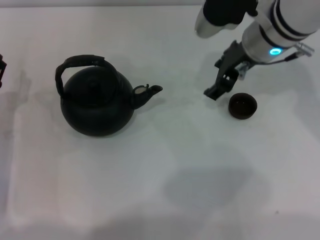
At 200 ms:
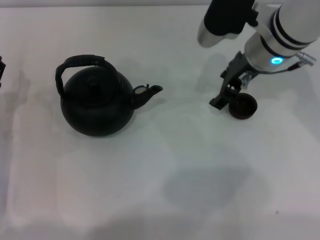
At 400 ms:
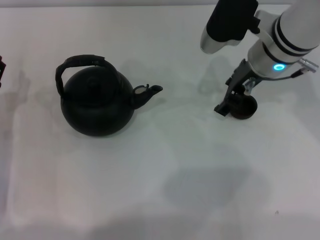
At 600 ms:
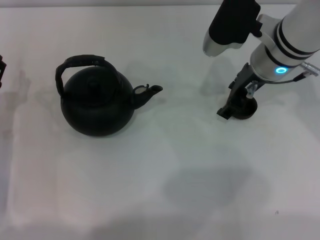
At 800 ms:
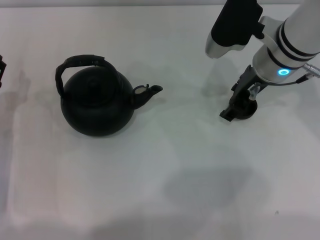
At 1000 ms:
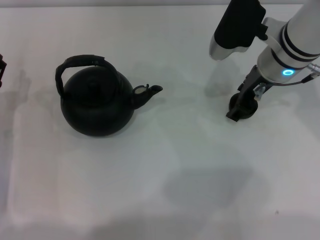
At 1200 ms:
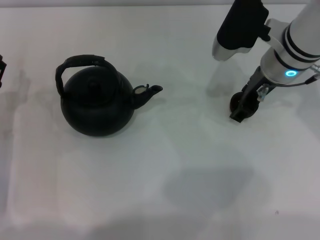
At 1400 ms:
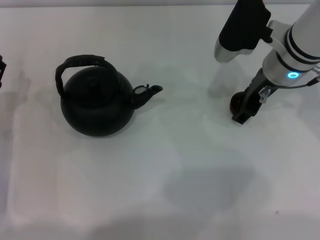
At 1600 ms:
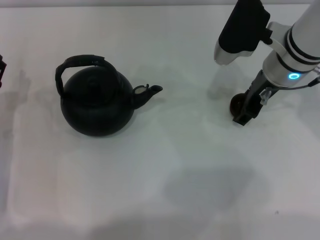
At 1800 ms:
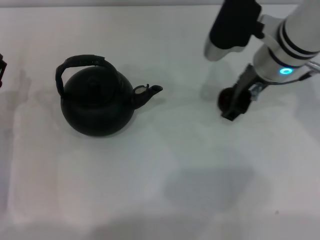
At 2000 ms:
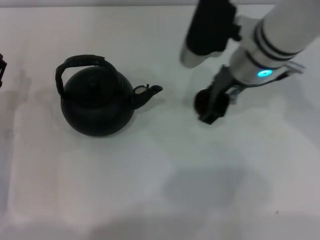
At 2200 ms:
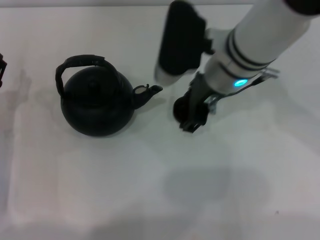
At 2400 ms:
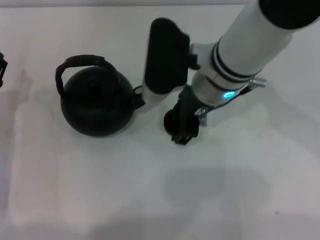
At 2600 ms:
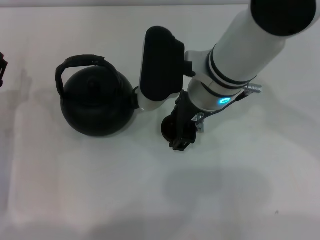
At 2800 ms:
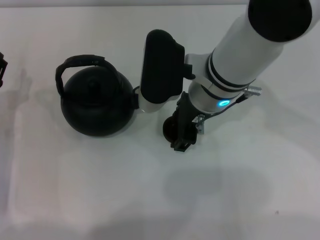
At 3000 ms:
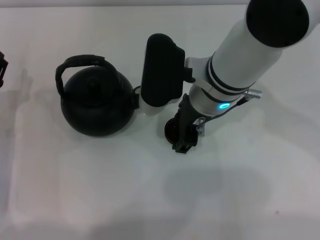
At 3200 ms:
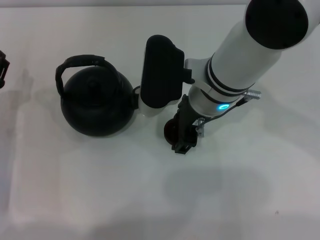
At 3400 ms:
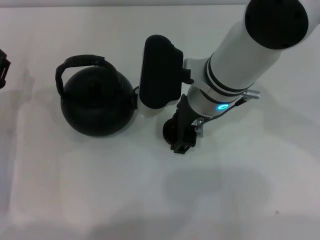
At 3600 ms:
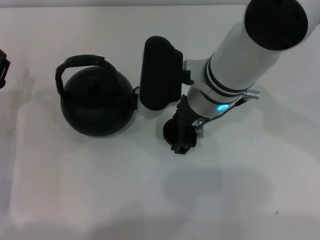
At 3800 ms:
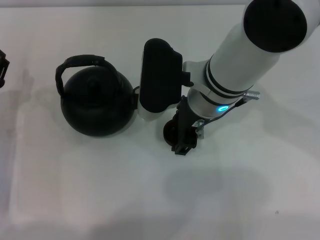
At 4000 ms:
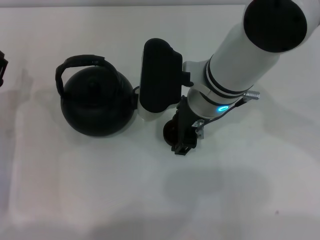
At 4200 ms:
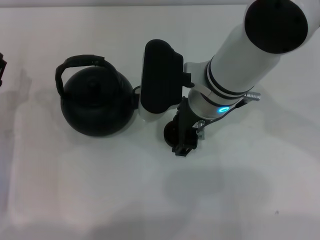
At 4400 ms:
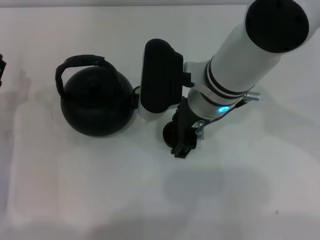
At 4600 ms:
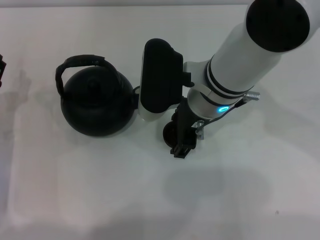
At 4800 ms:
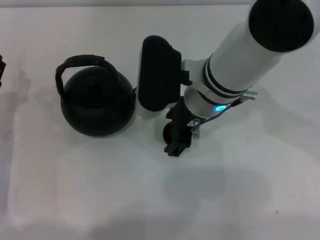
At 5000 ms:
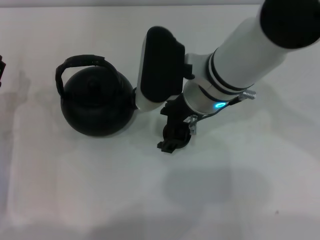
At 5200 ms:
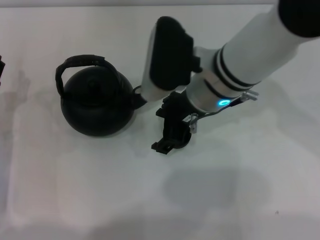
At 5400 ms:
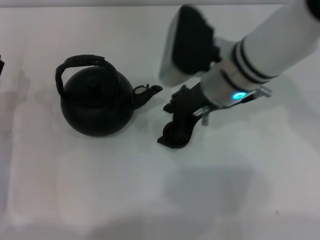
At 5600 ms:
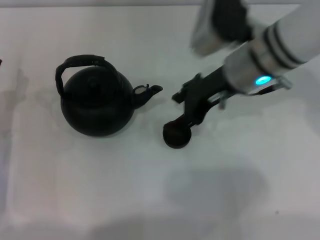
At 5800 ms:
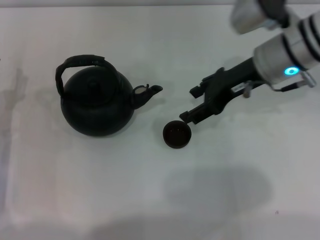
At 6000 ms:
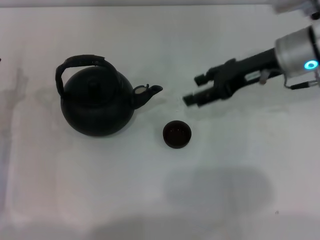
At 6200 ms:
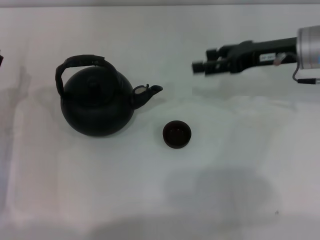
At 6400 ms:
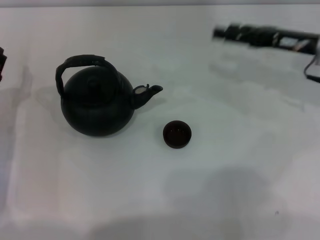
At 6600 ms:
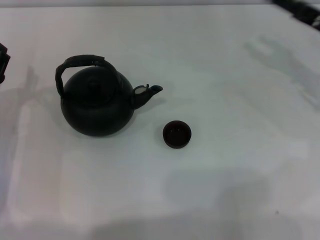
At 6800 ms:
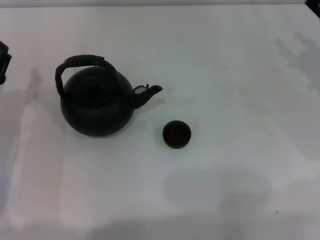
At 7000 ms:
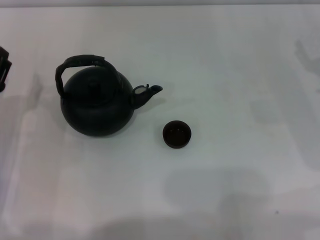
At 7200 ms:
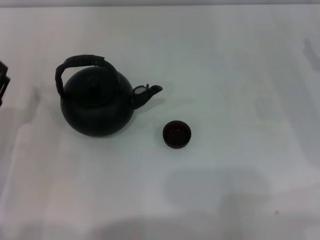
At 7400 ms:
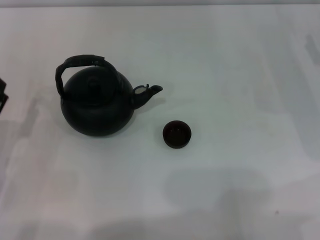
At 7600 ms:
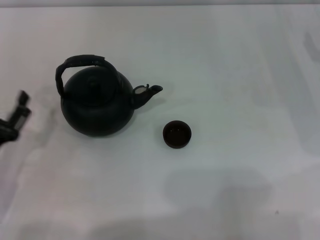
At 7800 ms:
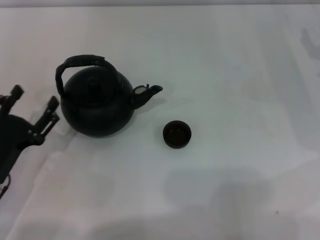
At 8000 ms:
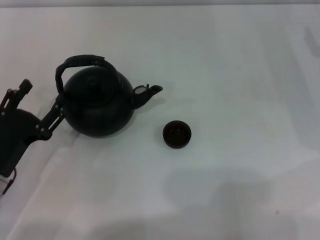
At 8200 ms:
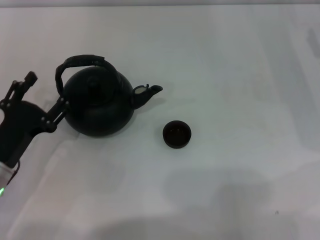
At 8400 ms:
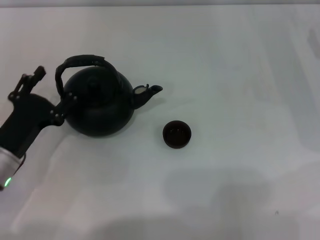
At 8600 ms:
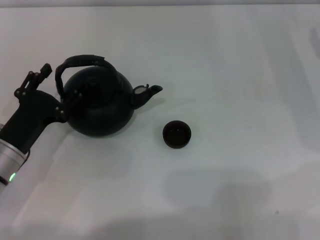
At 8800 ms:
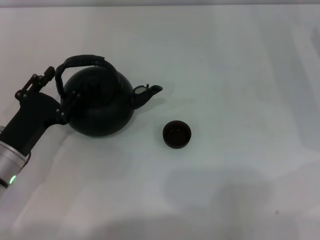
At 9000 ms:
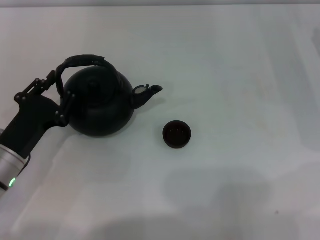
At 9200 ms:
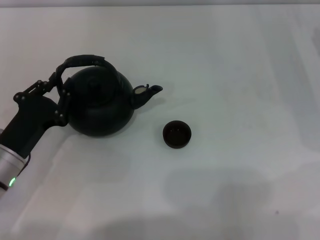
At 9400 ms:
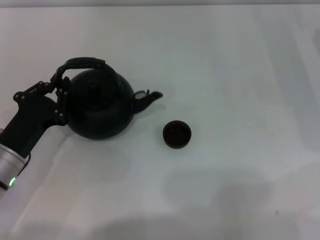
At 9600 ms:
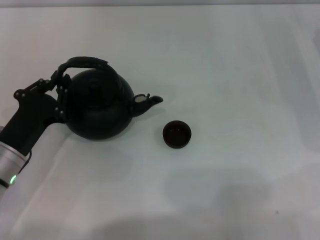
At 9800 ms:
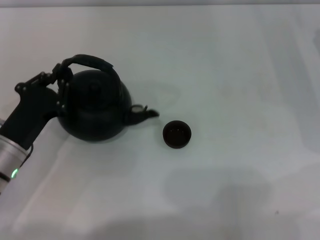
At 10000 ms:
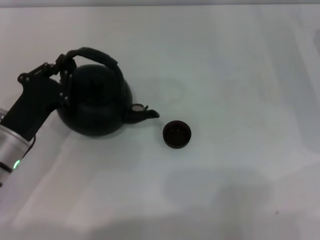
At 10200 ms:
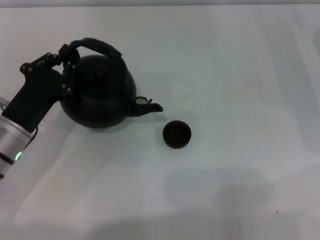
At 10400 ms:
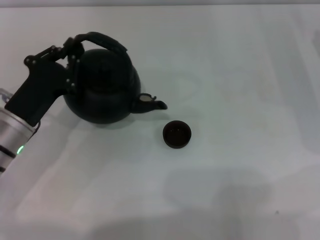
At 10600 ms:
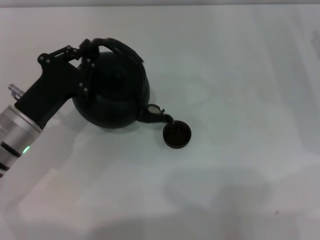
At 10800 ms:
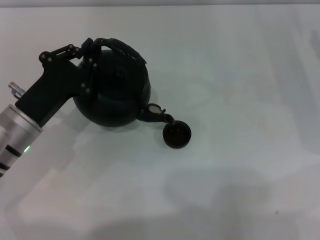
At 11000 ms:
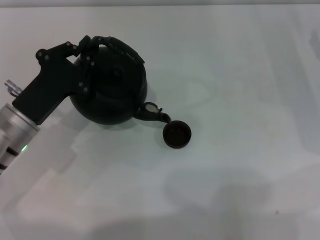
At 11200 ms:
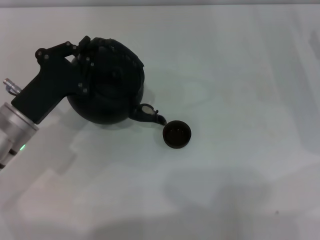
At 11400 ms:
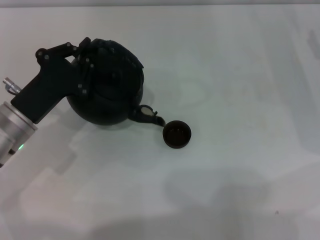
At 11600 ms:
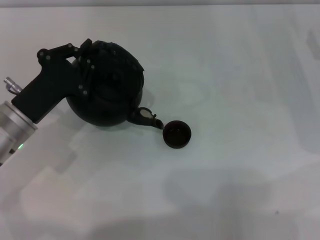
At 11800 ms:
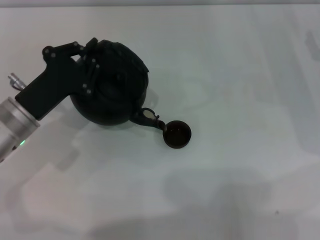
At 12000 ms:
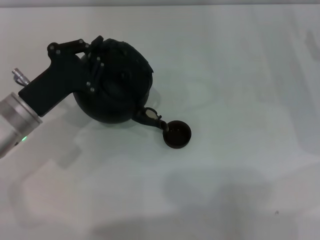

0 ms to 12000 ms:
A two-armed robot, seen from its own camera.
Task of the whole recording: Grasp the handle of the teapot with one hand and pour tea into the teacup.
Step, 1800 ms to 5800 ms: Place the teacup in the center of view with the right gripper.
Step, 6000 ms to 10200 ms: Pick up the teapot with the left gripper.
0 ms to 1600 ms: The grippers move only a little.
1600 ms to 3000 ms: The right gripper moves to the left, about 10 cm.
3000 ms to 4400 ms: The two grippers keep their place.
4400 ms to 6000 ms: The right gripper is displaced to the right by roughly 15 cm.
6000 ms to 7600 ms: The left gripper heads backward, covering roughly 10 cm. Meanwhile the right gripper travels to the right and downward by some 15 cm.
7600 ms to 9000 ms: The left gripper shifts by approximately 5 cm.
9000 ms to 10400 ms: The left gripper closes its fingers.

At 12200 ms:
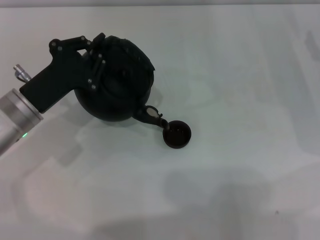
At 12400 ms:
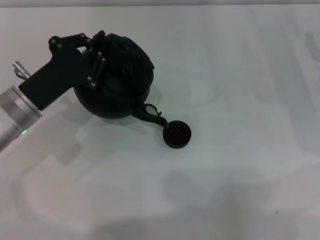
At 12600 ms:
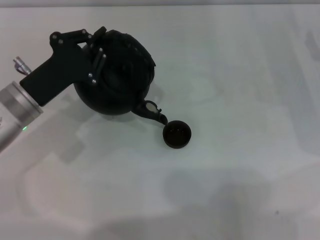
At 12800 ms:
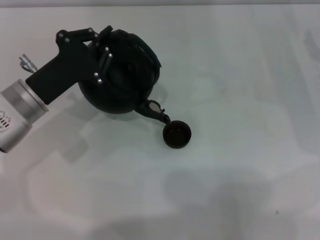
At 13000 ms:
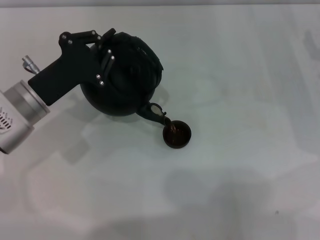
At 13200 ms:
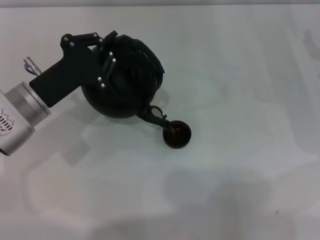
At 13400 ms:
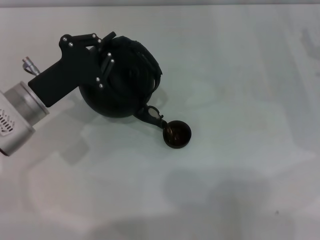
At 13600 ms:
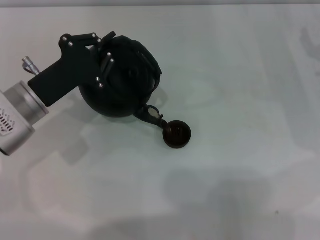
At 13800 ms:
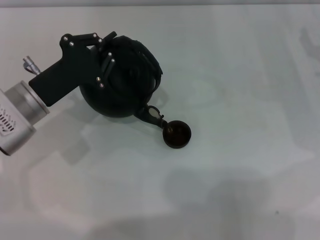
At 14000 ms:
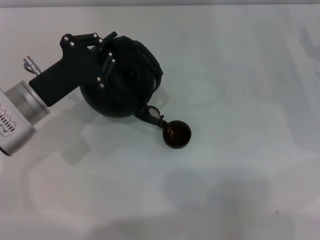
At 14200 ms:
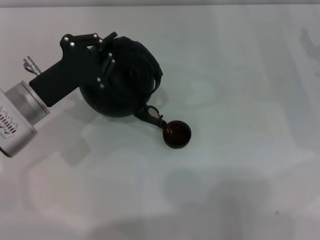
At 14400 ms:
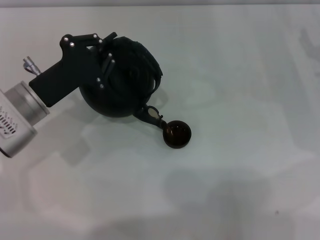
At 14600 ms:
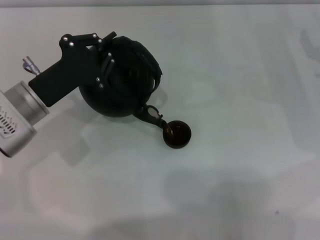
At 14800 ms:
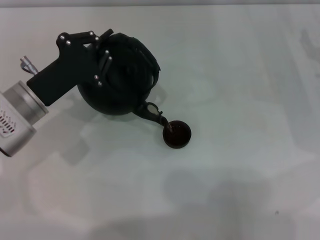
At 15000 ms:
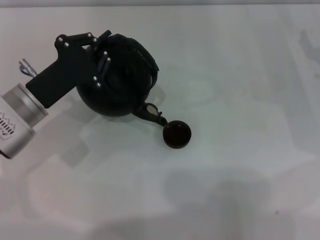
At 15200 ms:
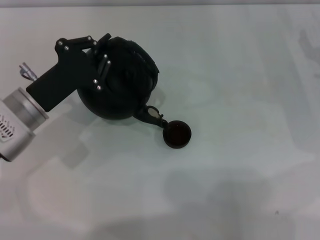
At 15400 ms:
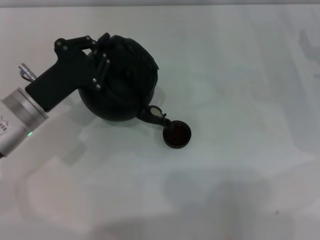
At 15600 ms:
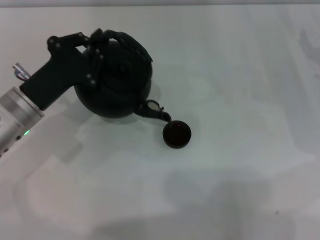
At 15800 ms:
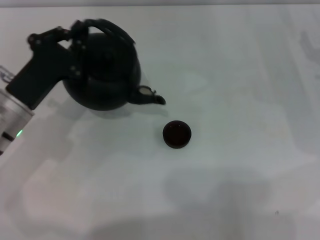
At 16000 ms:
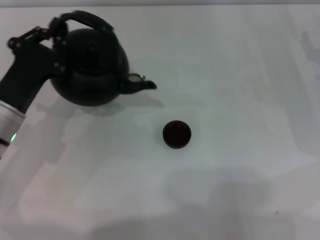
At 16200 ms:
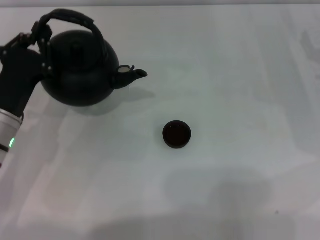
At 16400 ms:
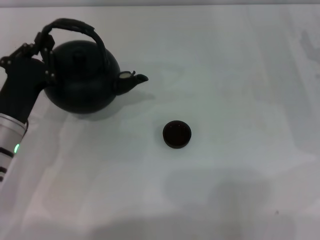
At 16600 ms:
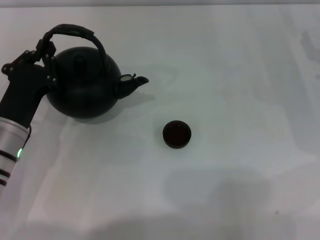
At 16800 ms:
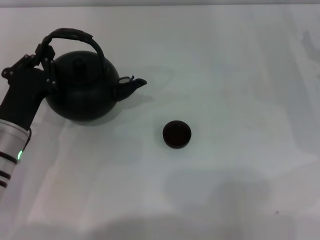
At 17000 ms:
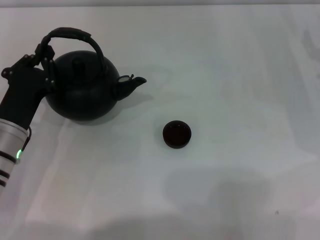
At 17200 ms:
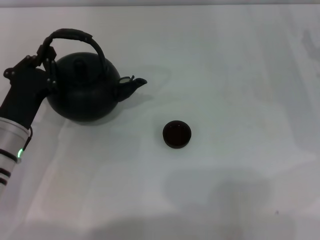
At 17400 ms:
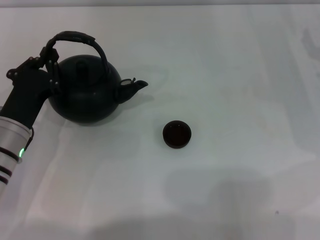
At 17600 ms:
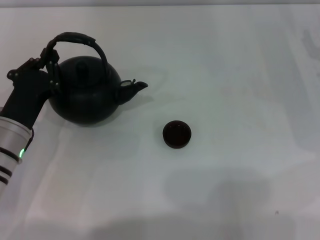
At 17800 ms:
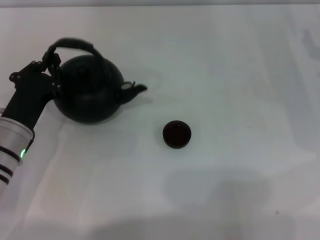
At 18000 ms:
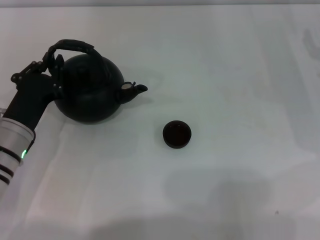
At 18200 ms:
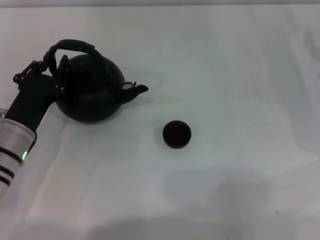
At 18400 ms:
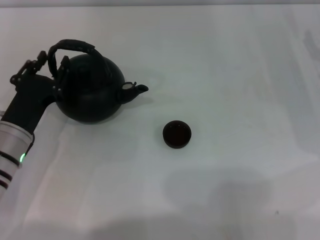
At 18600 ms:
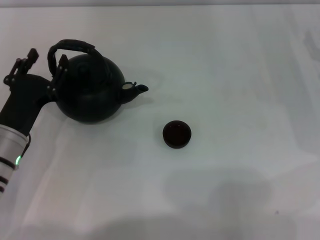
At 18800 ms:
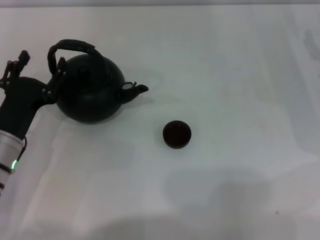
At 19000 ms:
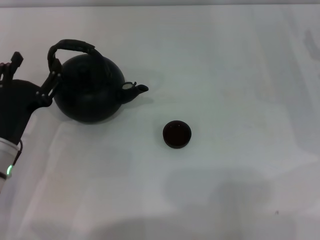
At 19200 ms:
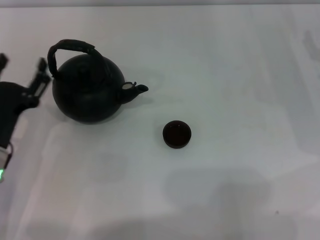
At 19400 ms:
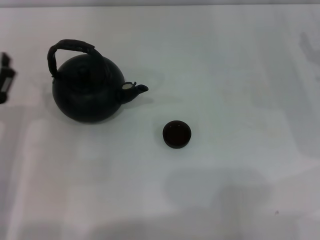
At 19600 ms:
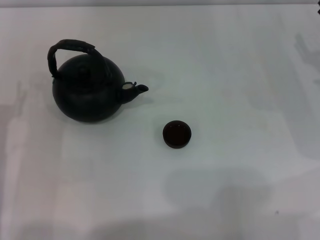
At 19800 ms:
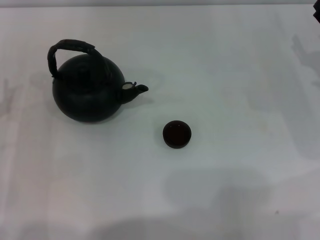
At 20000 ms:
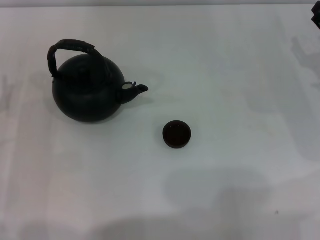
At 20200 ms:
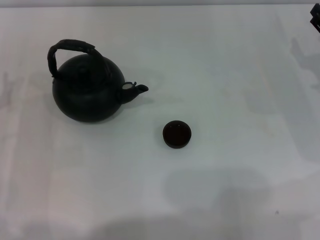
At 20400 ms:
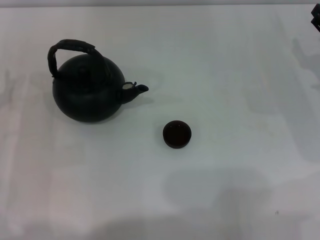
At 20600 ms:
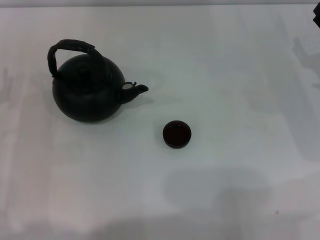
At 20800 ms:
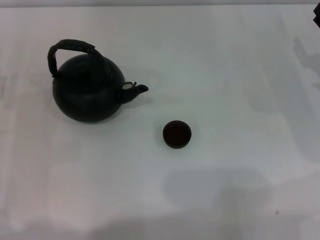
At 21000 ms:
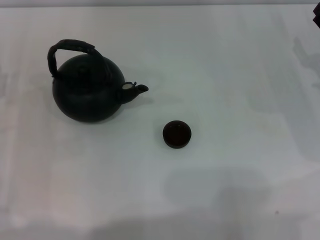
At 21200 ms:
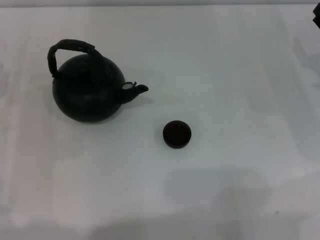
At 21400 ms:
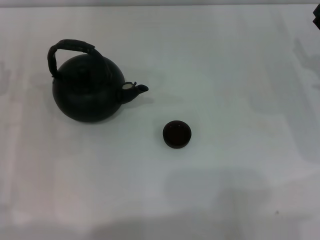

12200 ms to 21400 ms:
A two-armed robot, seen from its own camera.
Task of the whole recording: Grasp the handle of the teapot with one hand and pour tea into the teacup.
Step, 12200 ms to 15600 ms: Pour tea into the teacup with the left gripper.
Step, 15800 ms to 18400 ms: Put down the teapot with the left gripper.
12200 ms to 13800 ms: The grippers move only a little.
13800 ms to 15200 ms: Both grippers stay about where they are.
15200 ms to 16800 ms: The left gripper changes place by roughly 5 cm.
16800 ms to 18400 ms: The grippers make only small movements.
18400 ms to 19800 ms: The left gripper heads to the left, covering about 10 cm, and opens up.
